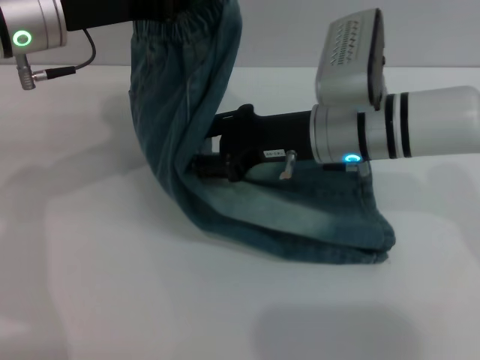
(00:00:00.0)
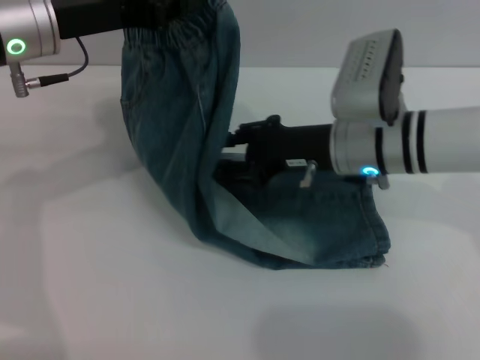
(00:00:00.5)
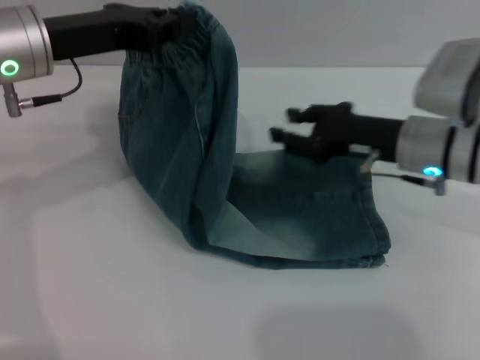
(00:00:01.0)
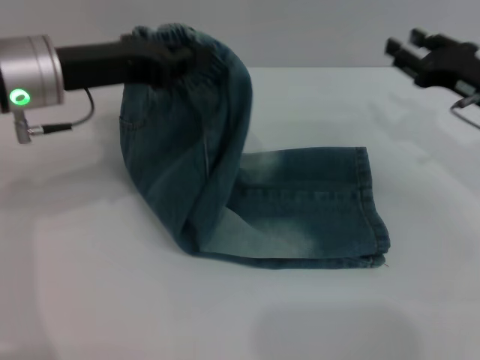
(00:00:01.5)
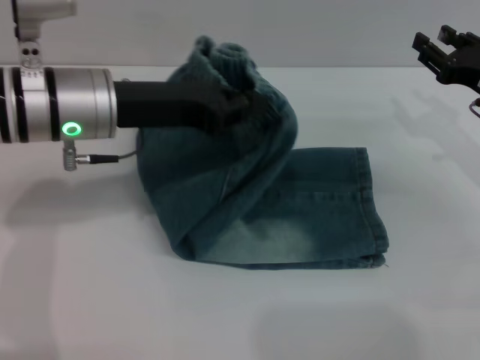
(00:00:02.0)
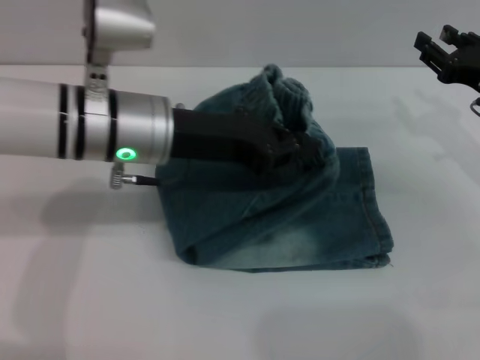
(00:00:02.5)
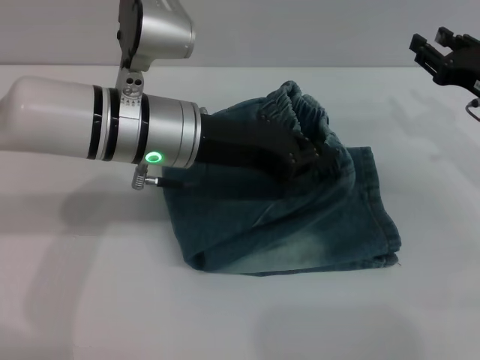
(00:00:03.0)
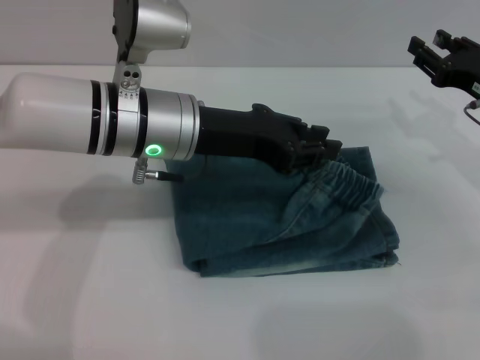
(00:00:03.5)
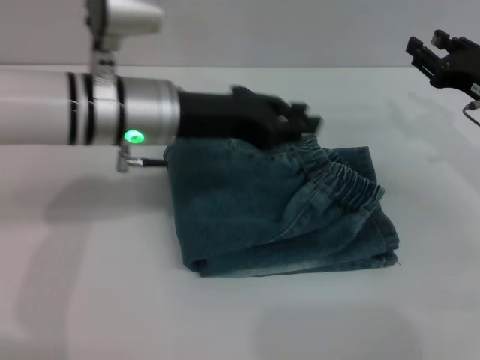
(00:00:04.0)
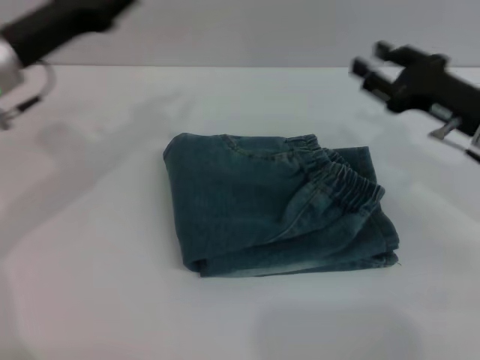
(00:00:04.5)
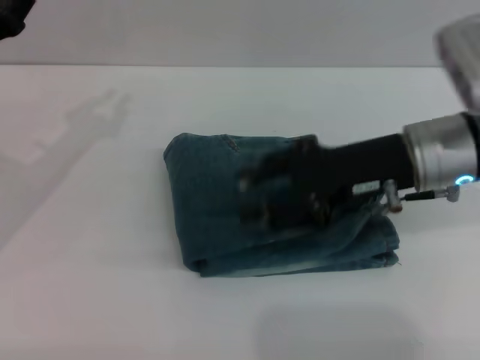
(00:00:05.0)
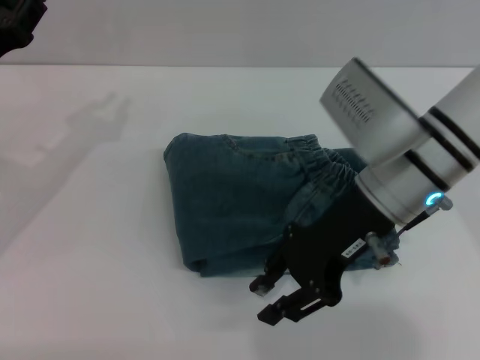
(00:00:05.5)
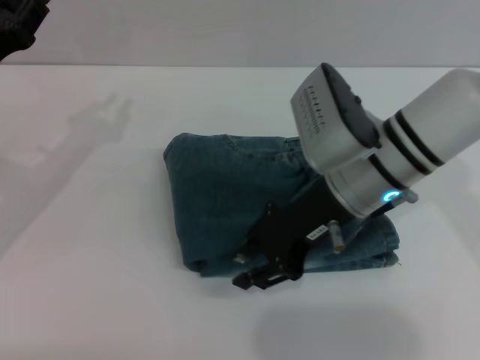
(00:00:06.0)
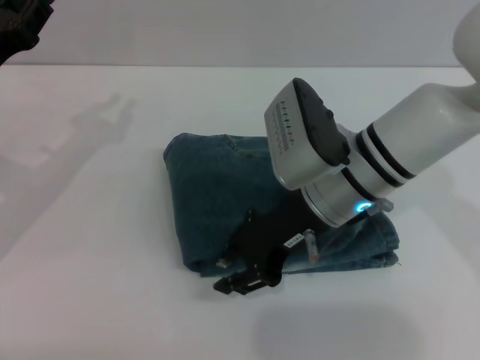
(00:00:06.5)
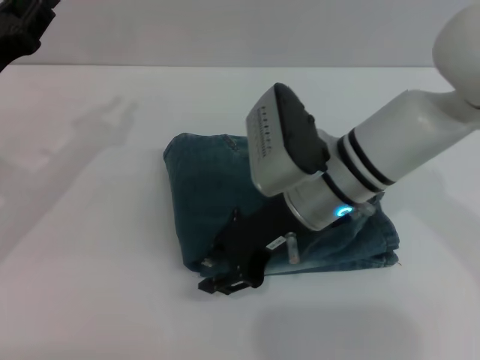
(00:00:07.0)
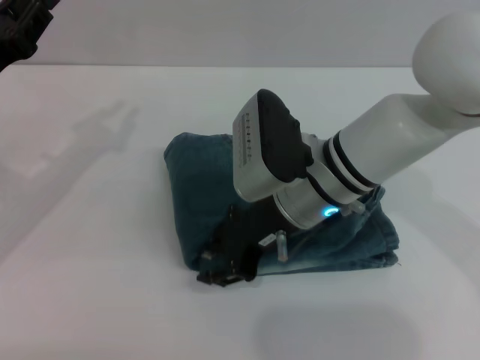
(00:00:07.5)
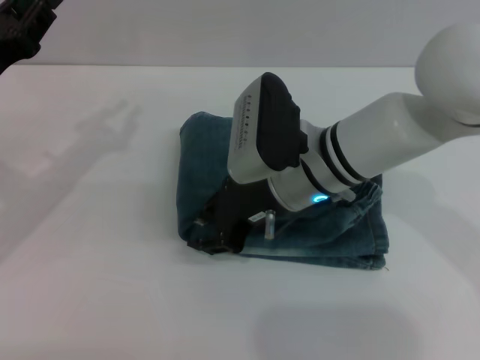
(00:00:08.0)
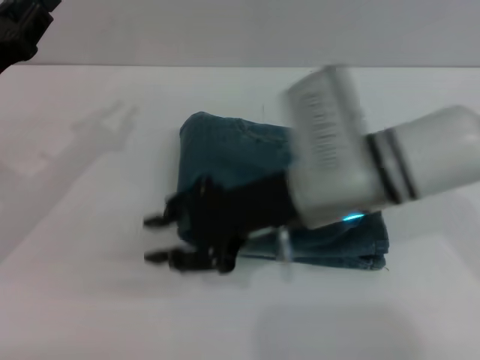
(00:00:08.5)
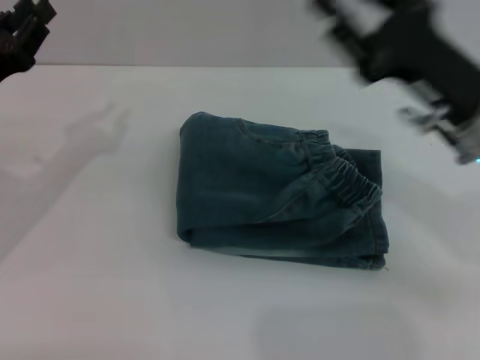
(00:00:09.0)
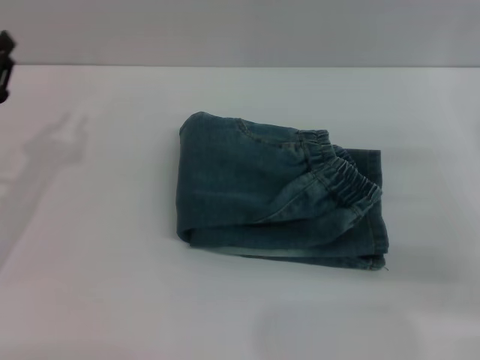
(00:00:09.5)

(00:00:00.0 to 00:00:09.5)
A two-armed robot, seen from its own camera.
Step, 00:00:00.0 - 00:00:03.5: Fold the pants from left to right with the left gripper.
Step, 00:00:04.0 - 00:00:08.0: Place the folded trousers onto the center area with the right grippers.
00:00:00.0 - 00:00:02.0: The left gripper changes place by about 5 cm. Meanwhile the right gripper goes some 20 cm to the right.
00:00:04.0 - 00:00:05.5: The grippers both shift to the left by about 15 cm.
00:00:05.5 - 00:00:07.5: The right gripper goes about 5 cm to the left.
00:00:07.5 - 00:00:09.5: The left gripper shifts by some 5 cm. Meanwhile the right gripper goes some 25 cm to the right.
